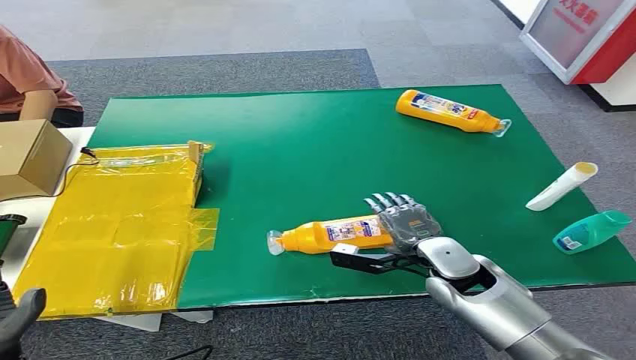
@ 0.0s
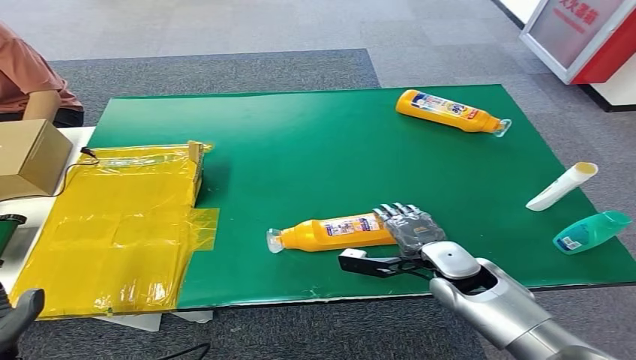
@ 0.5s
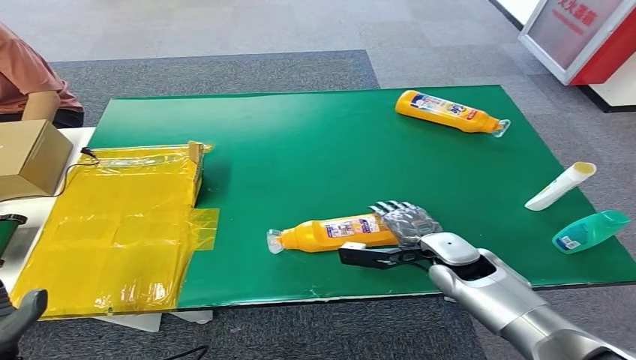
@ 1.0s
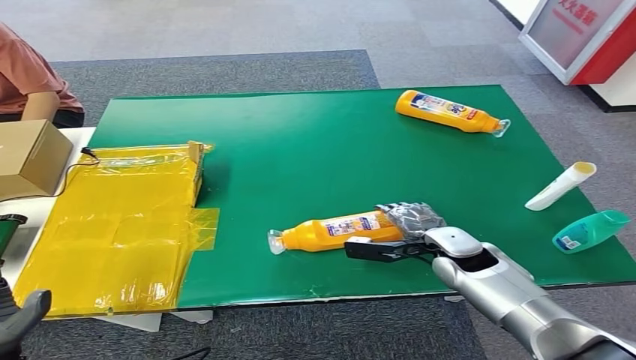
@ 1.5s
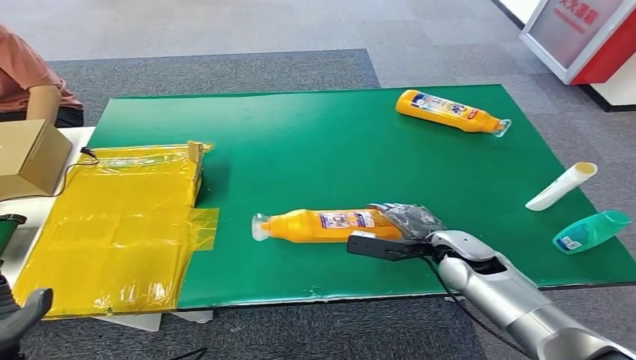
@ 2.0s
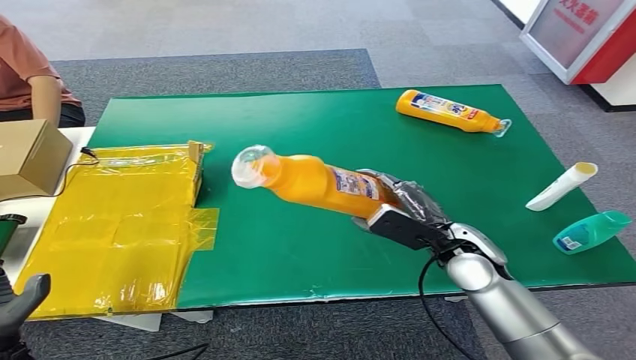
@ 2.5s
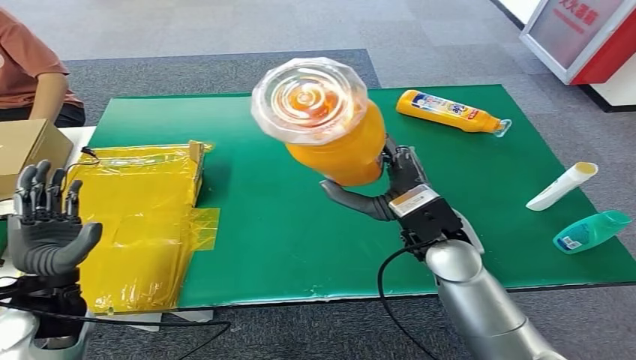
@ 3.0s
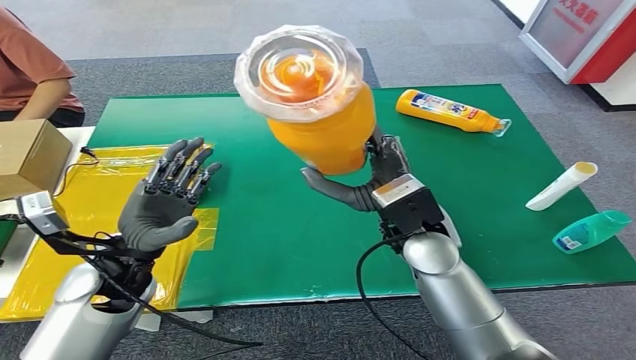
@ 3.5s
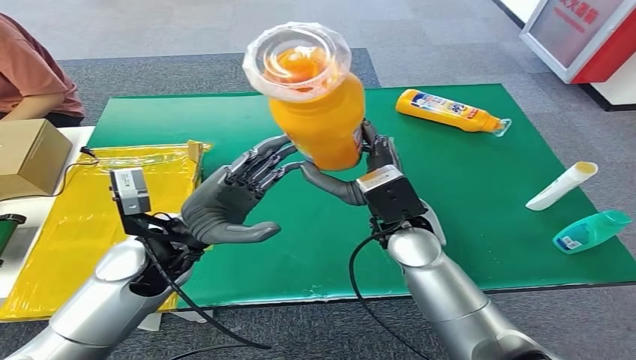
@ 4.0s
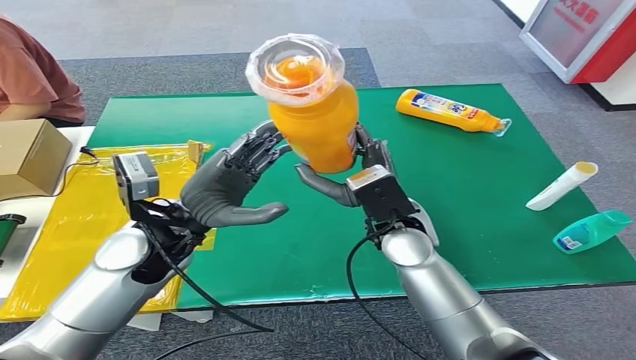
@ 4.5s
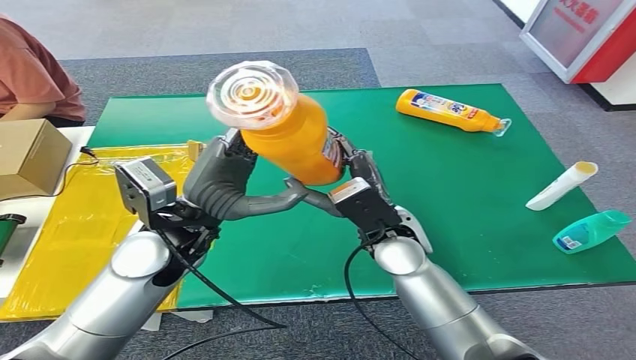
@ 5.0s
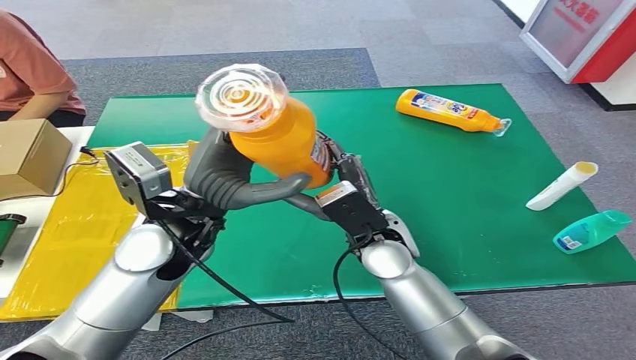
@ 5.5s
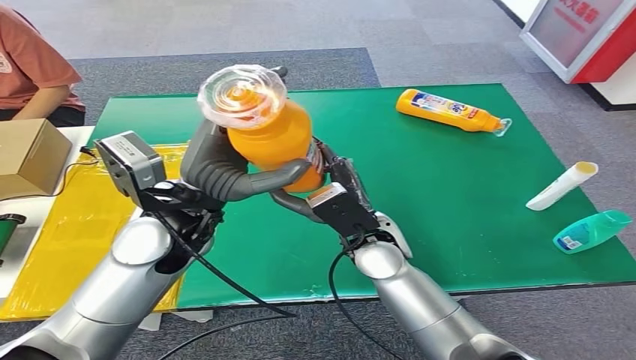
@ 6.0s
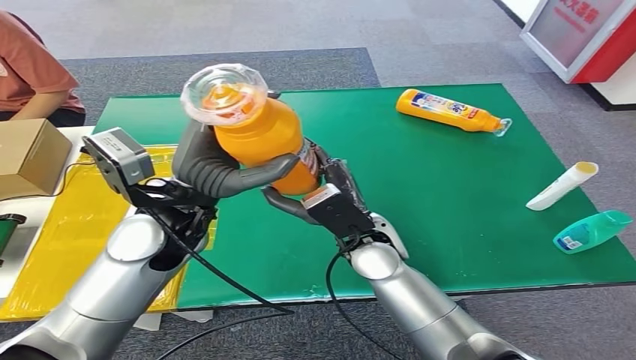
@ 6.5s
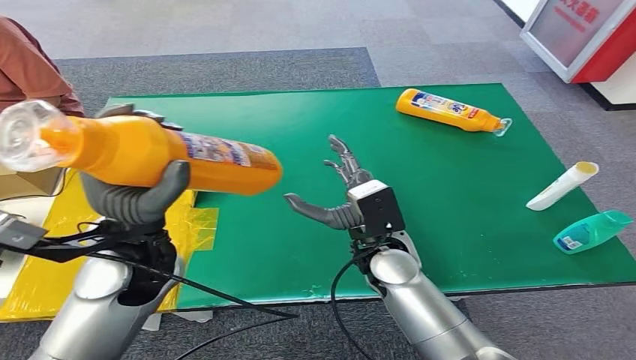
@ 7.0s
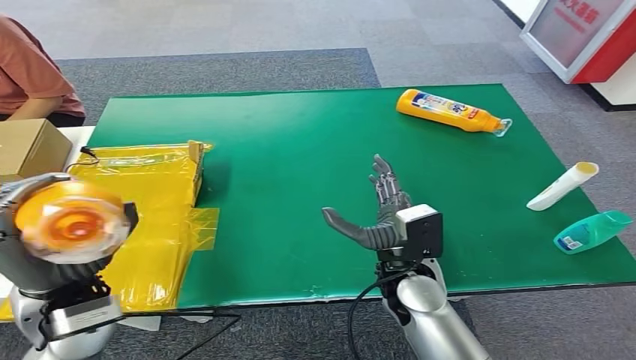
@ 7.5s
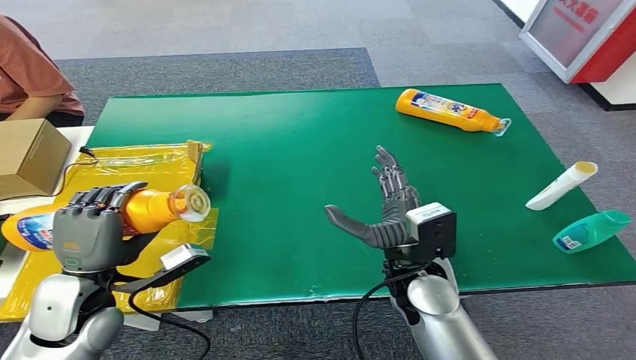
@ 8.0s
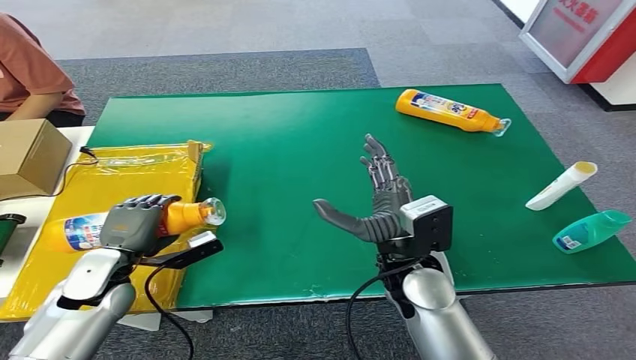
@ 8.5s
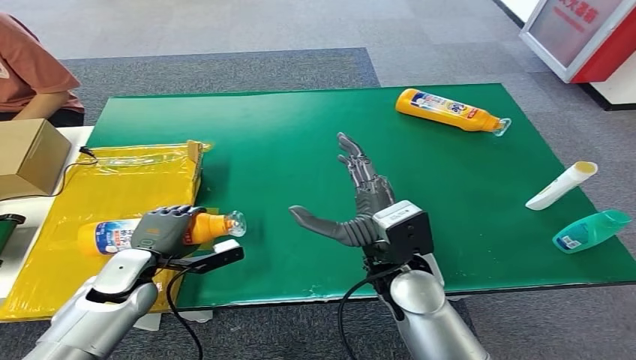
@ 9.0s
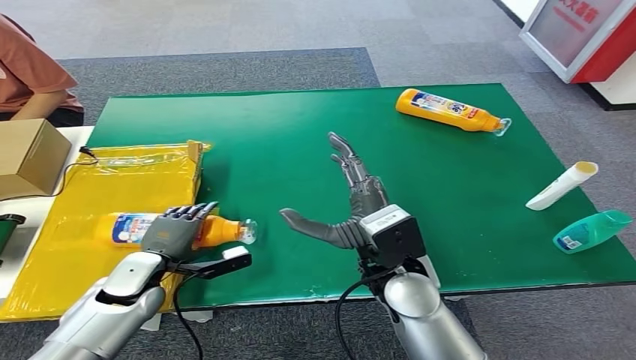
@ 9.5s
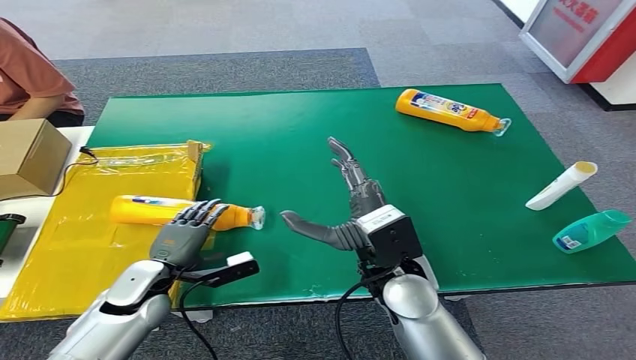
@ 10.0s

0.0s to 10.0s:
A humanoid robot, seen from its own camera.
Step, 0.0s to 2.5s: Pick up the bottle from the table.
Step, 3.0s to 10.0s: Turn the bottle to the front side.
8.0s to 10.0s: The left hand travels downward by about 10 cm.
